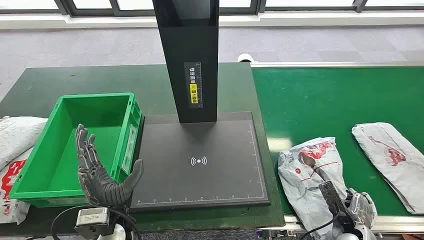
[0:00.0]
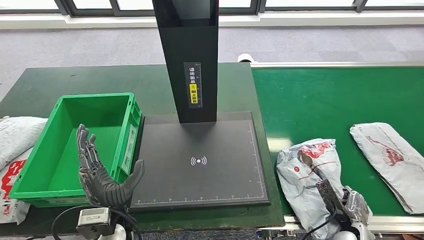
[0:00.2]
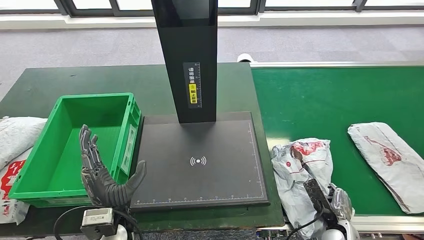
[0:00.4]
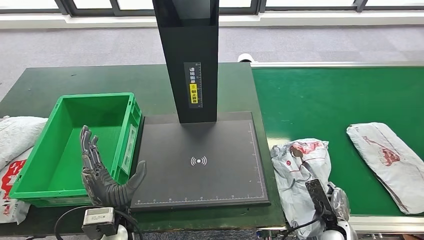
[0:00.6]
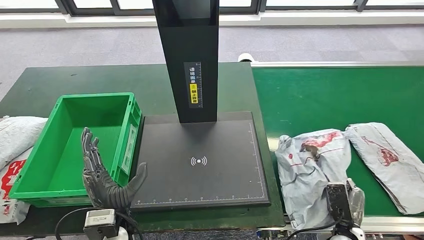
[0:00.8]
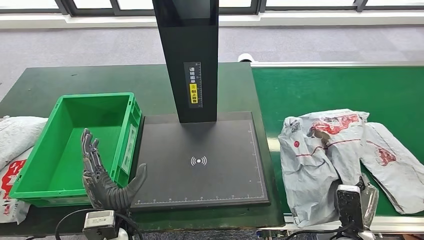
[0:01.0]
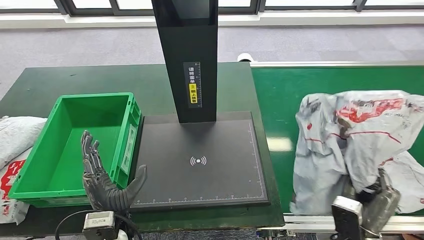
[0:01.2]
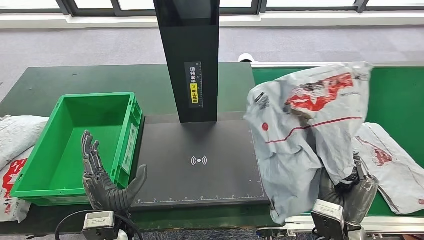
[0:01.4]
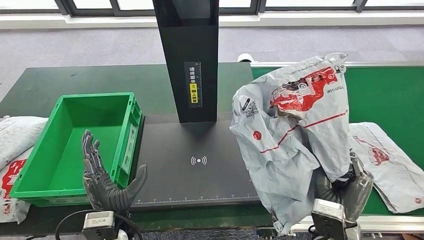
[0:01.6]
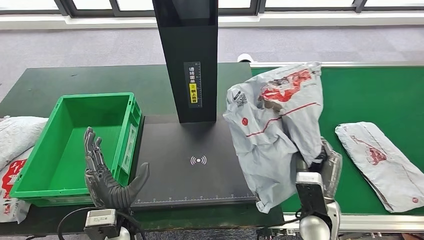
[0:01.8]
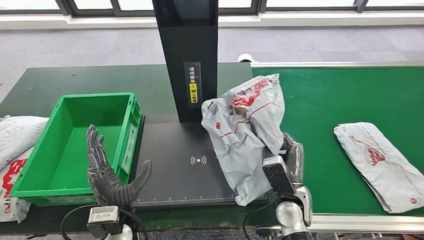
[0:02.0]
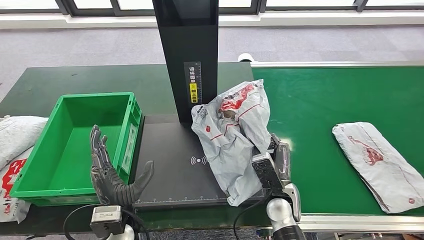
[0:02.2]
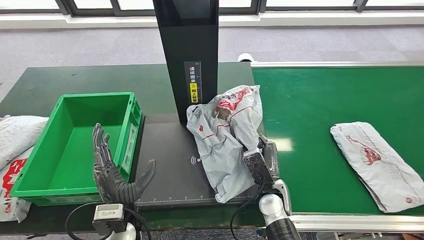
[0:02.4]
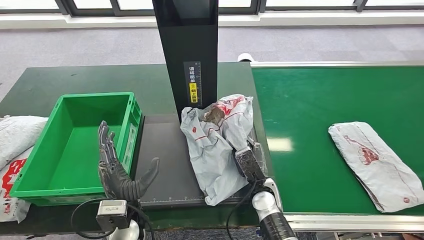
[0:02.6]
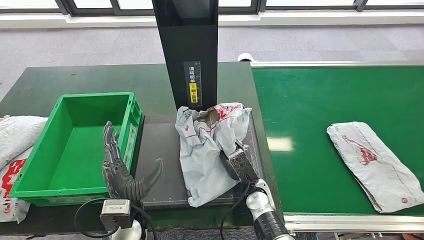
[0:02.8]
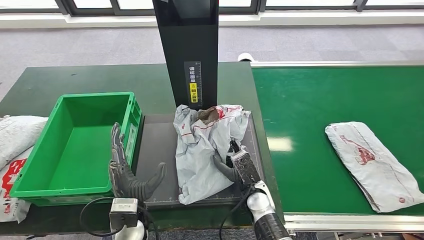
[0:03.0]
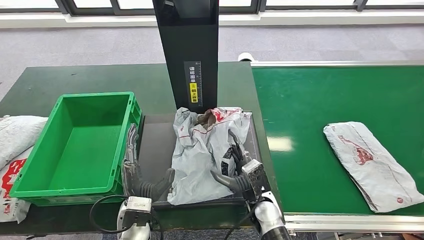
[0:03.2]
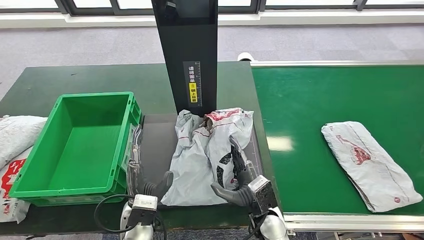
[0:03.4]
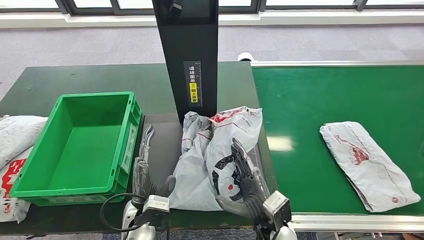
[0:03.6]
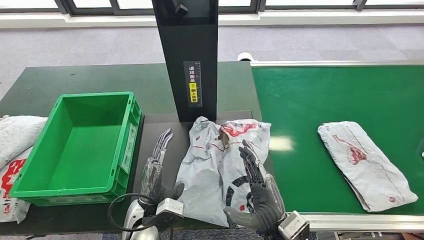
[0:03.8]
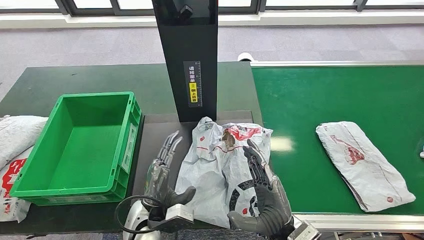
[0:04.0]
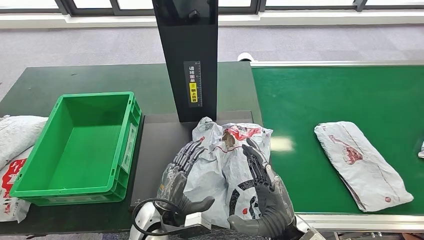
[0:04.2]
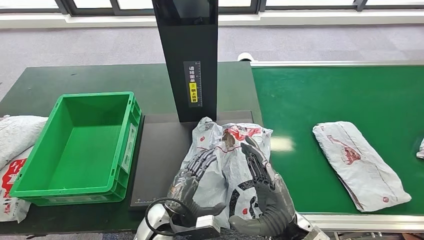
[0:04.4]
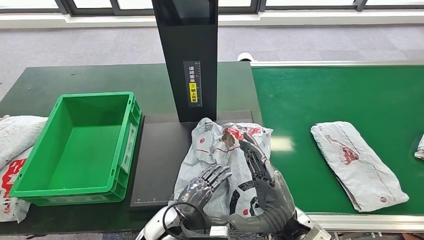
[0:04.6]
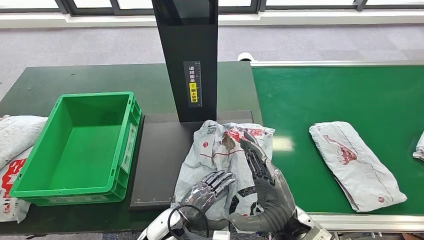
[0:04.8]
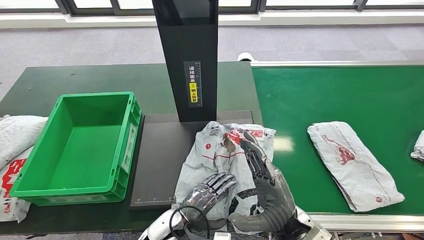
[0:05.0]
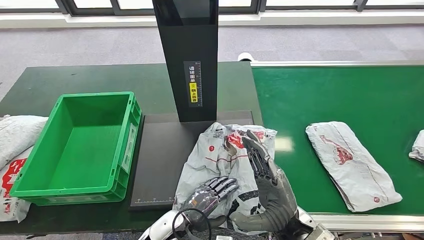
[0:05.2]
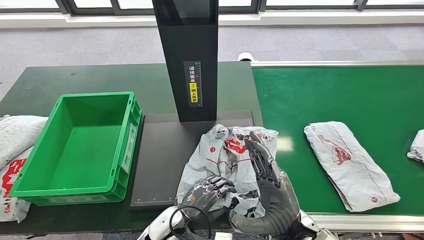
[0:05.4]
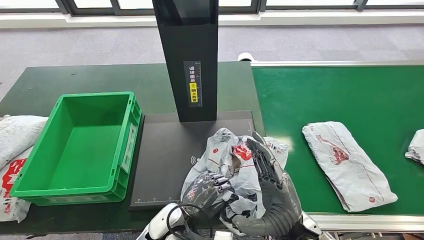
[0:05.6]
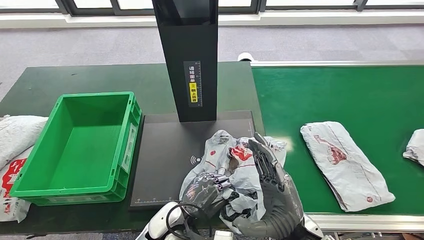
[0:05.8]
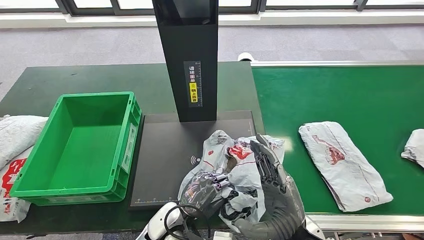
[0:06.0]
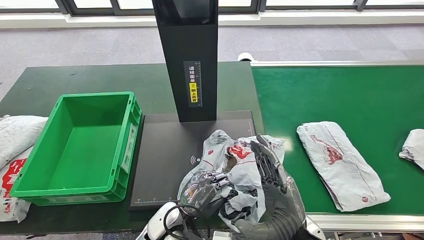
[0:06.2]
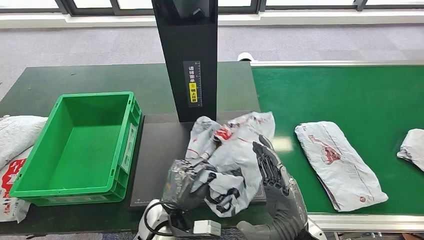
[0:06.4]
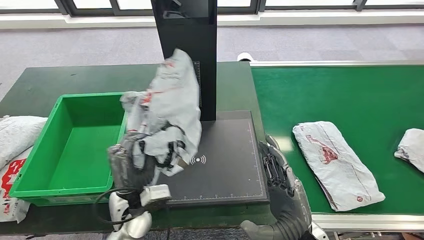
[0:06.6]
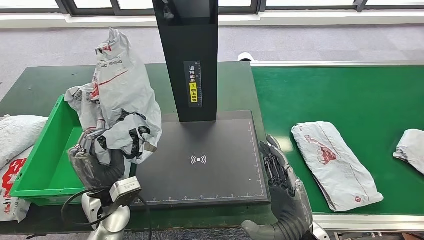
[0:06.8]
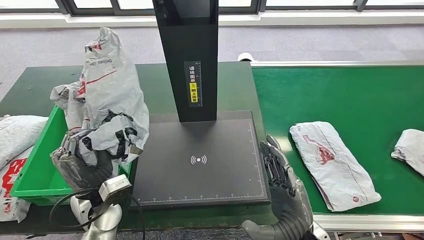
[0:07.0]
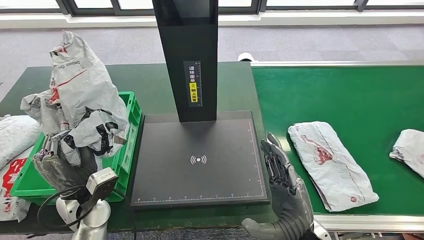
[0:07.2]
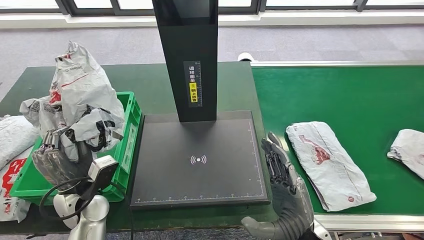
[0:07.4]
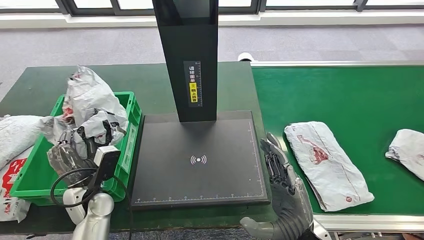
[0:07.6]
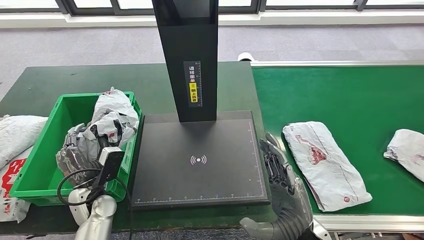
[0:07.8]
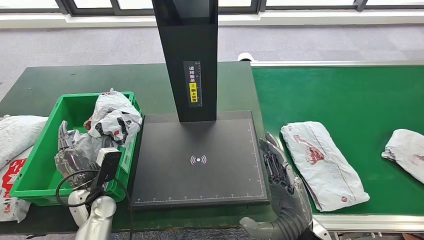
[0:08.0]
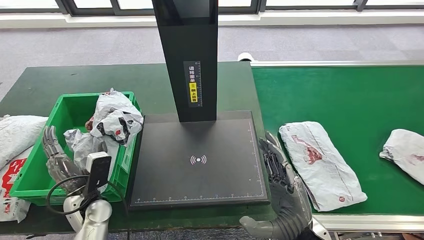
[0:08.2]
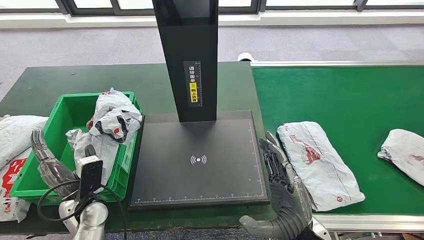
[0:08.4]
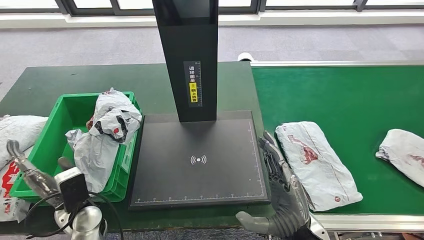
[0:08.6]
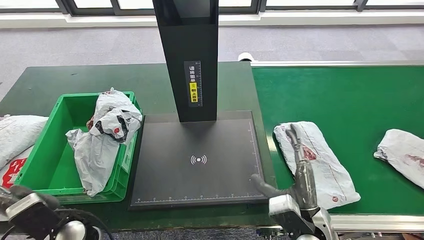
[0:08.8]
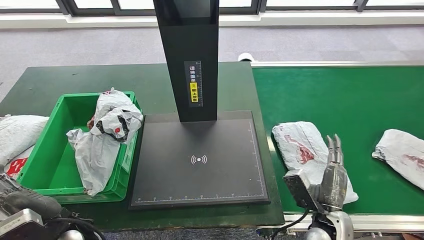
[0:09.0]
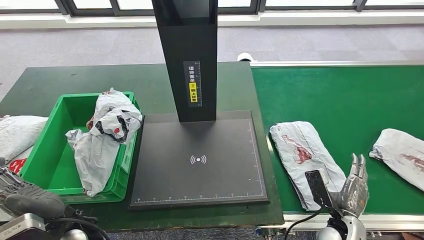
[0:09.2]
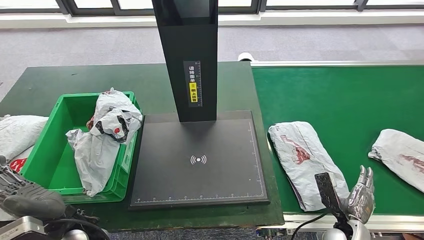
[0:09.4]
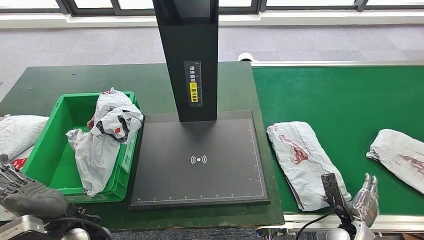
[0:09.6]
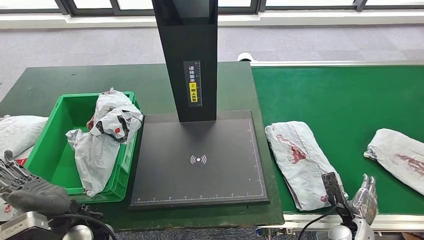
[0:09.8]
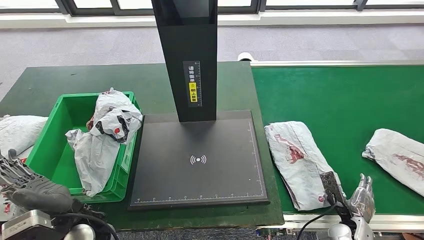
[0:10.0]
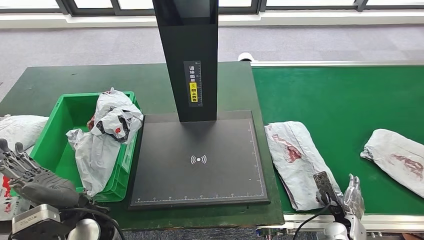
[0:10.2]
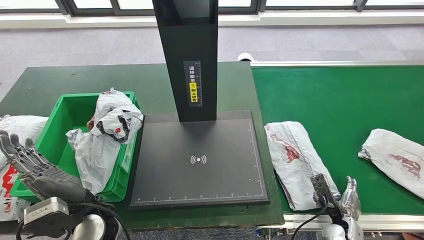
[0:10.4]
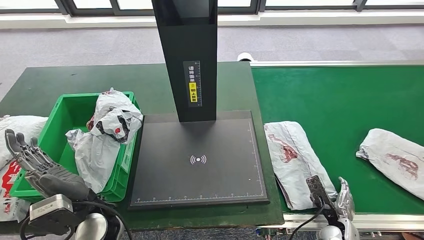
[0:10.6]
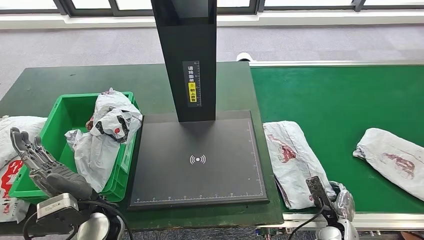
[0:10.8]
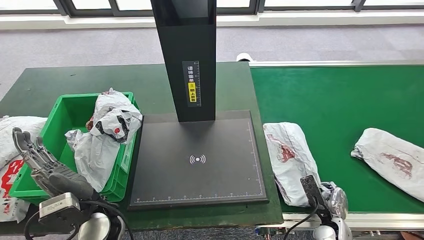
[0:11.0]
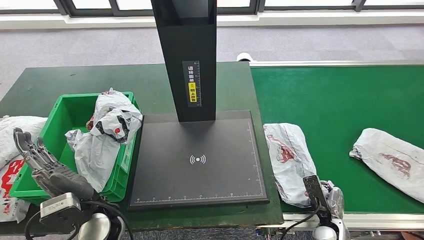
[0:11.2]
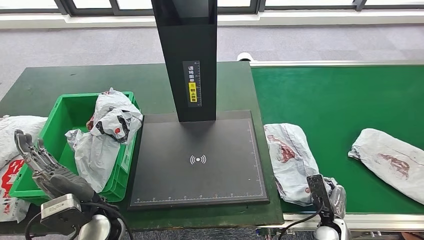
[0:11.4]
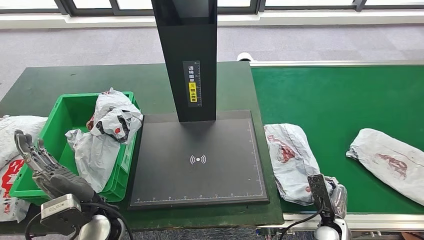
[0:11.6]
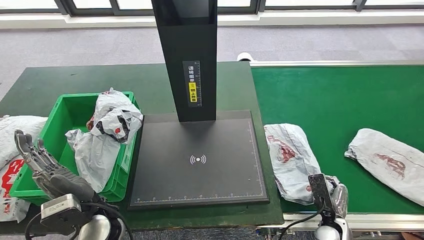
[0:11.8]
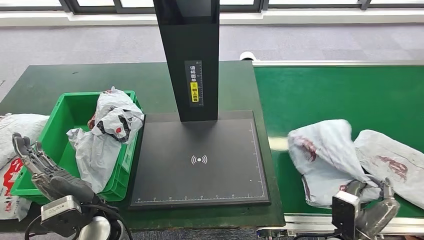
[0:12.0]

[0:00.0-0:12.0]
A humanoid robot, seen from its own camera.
Step, 0:00.0 to 0:01.8: Take the parcel off the conveyor belt.
Step, 0:02.0 to 0:05.0: Place the parcel onto the inbound machine.
Step, 0:05.2 to 0:06.8: Pick up the parcel from the inbound machine.
Step, 0:07.0 to 0:09.2: Put the parcel inside the courier box.
0:03.0 to 0:04.4: The left hand heads to the right, covering some 5 cm, while the right hand goes about 15 cm upward, backward and to the right.
0:09.0 to 0:10.4: The left hand moves approximately 5 cm, while the right hand is displaced downward and to the right by some 15 cm.

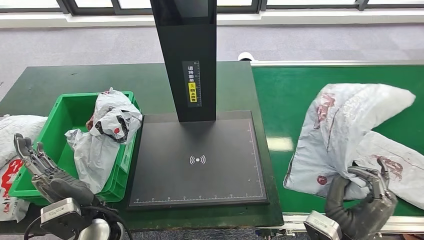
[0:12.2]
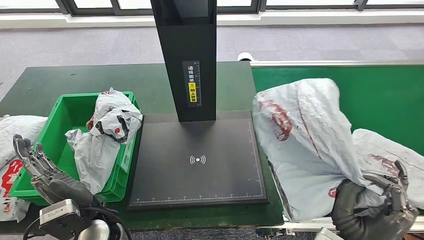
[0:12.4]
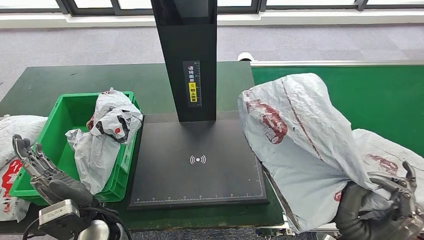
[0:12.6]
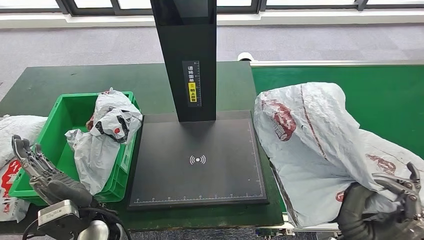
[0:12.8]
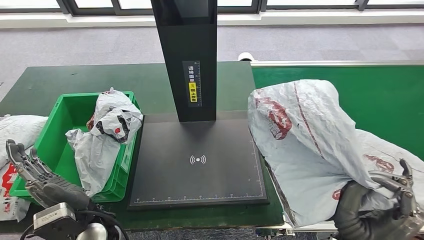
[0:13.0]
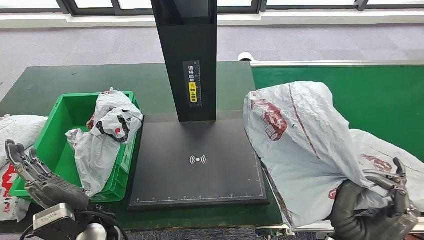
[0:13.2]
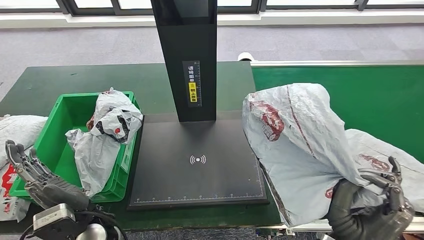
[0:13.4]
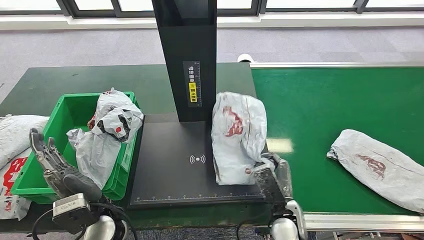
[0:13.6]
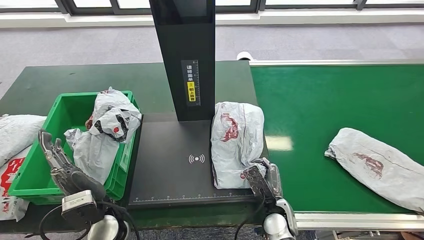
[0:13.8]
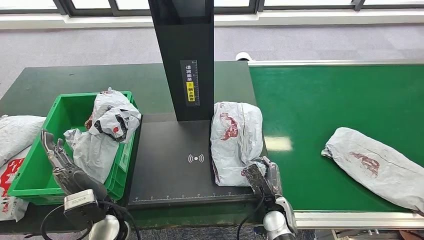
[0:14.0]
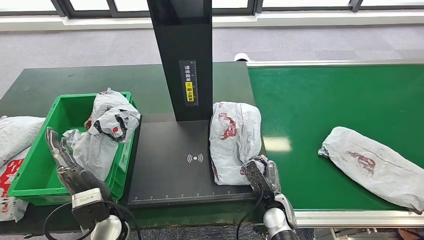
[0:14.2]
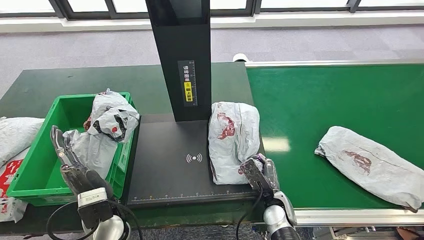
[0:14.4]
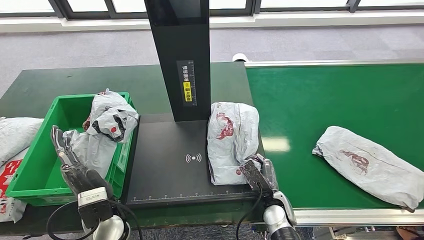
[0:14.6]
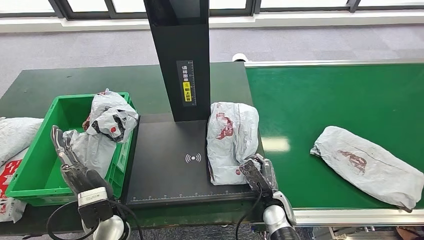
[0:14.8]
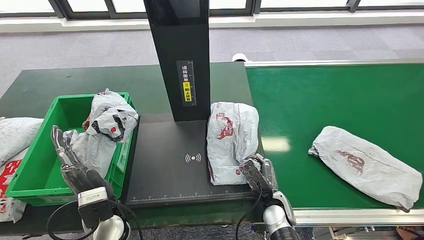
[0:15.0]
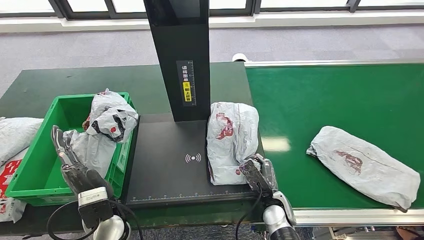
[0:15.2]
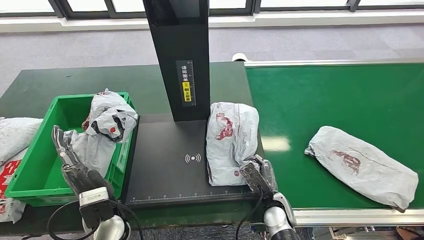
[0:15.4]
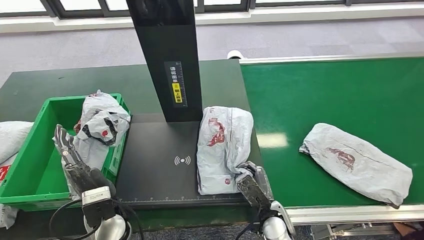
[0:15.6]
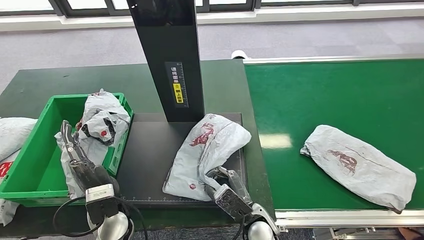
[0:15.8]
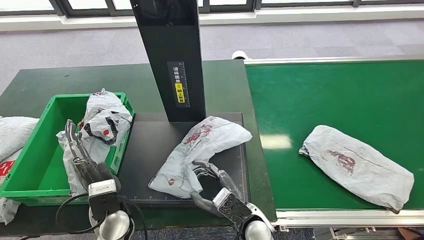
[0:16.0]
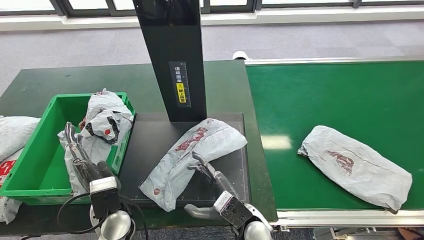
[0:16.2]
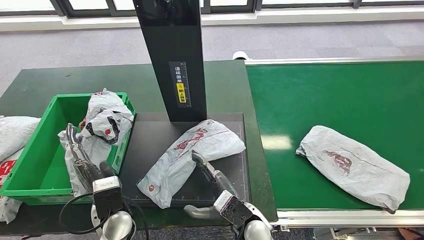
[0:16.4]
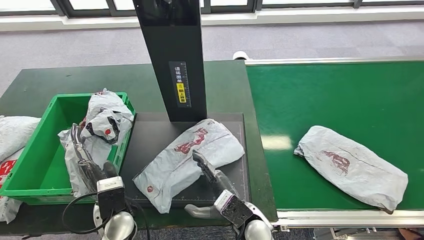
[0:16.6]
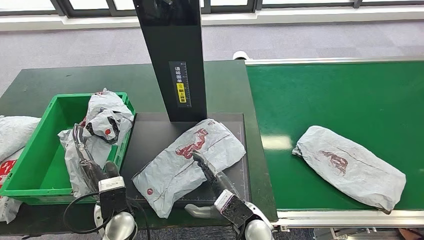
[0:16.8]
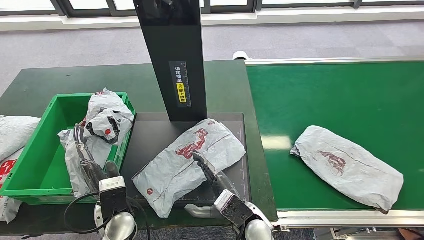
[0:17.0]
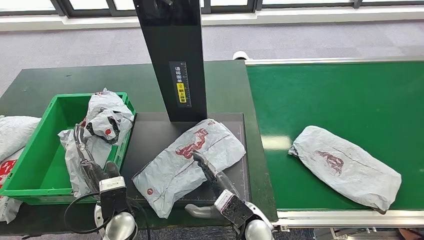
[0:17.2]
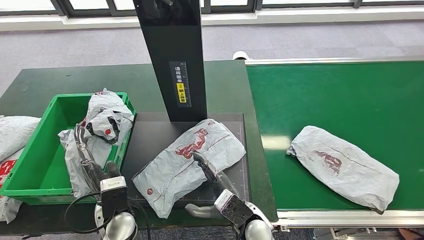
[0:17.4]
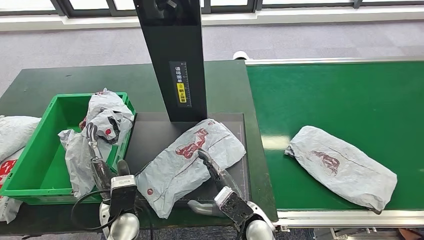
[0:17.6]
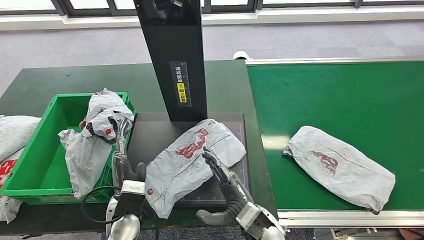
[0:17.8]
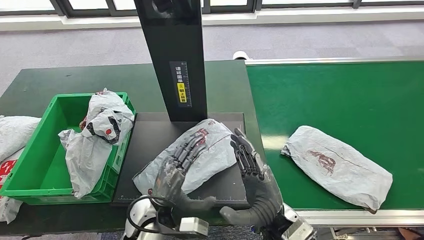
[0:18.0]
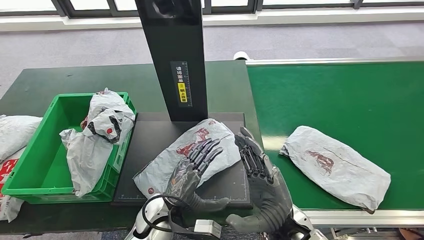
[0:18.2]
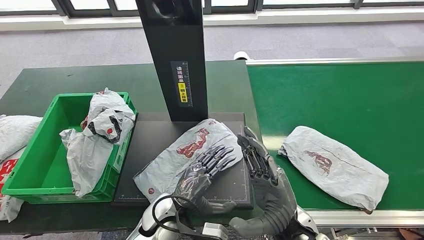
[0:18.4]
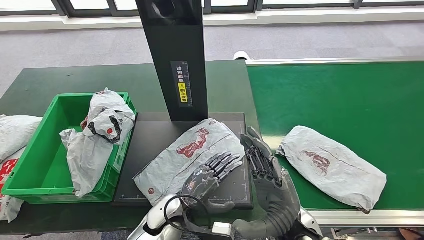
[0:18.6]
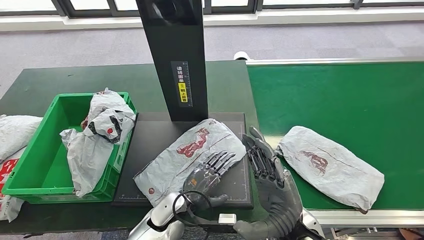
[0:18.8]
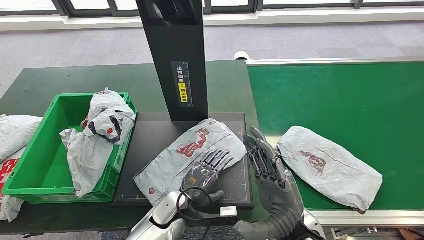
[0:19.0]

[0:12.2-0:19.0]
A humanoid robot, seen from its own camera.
Step, 0:13.0 to 0:16.0: Place the parcel onto the inbound machine.
0:16.2 to 0:17.6: The hands make only small movements.
0:17.6 to 0:19.0: The left hand travels to the right by approximately 10 cm. Meanwhile the right hand moves upward and to the right, some 15 cm.
